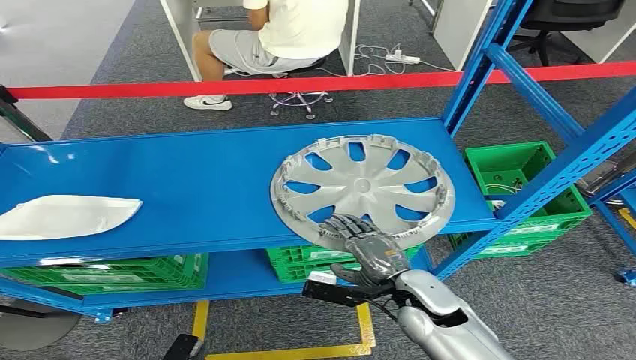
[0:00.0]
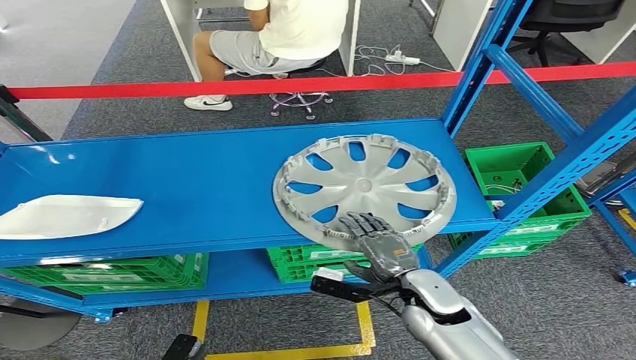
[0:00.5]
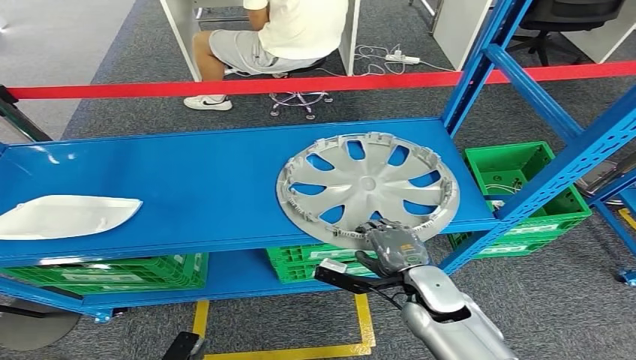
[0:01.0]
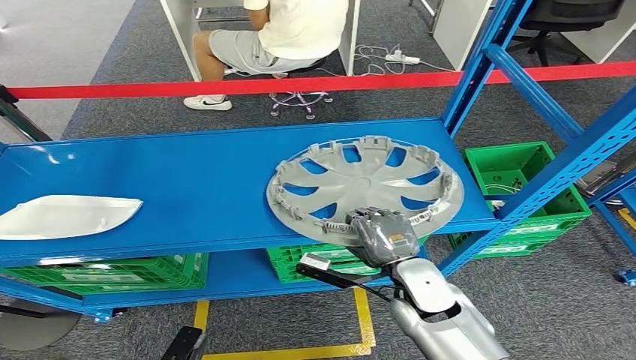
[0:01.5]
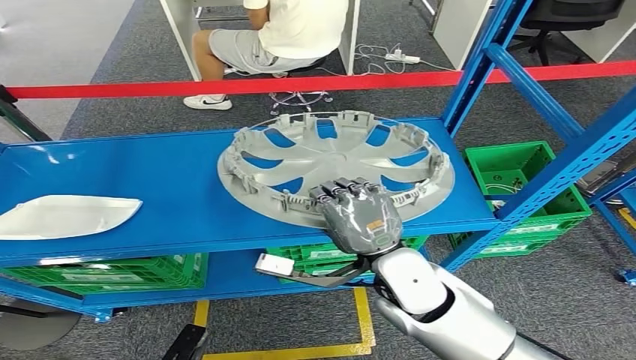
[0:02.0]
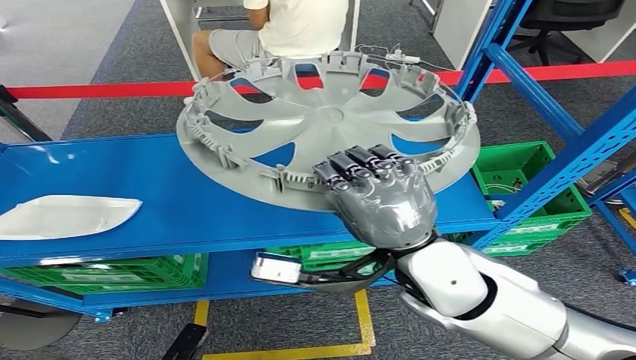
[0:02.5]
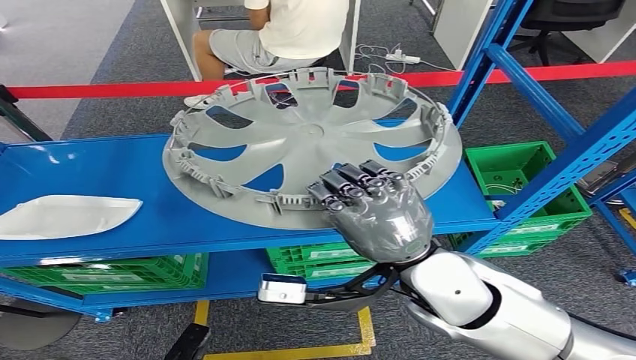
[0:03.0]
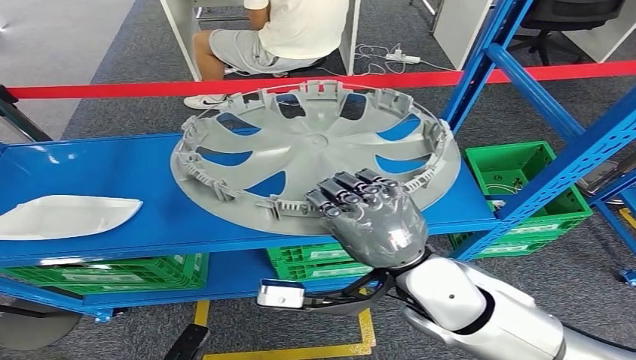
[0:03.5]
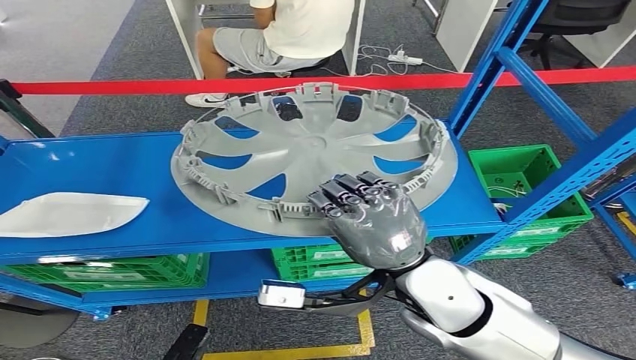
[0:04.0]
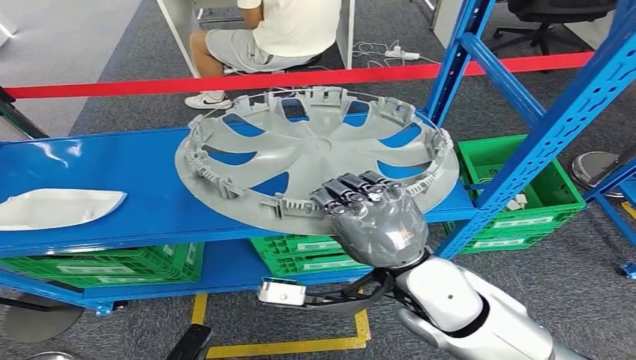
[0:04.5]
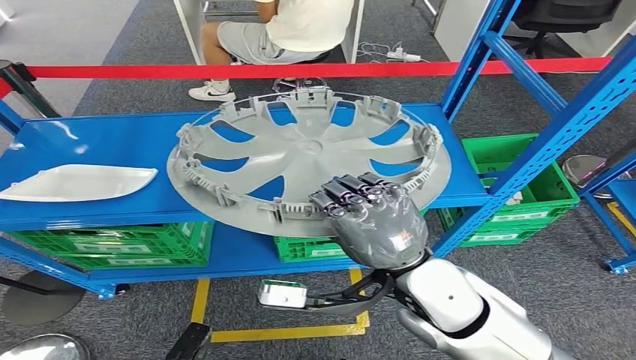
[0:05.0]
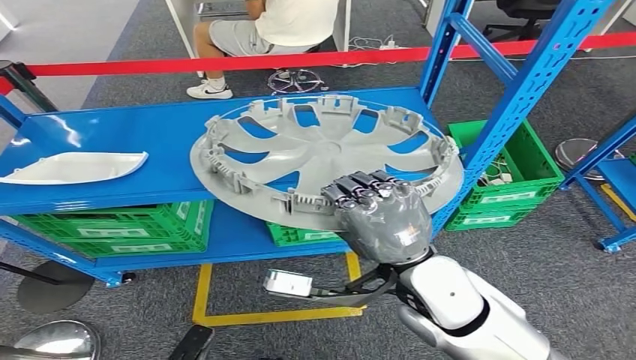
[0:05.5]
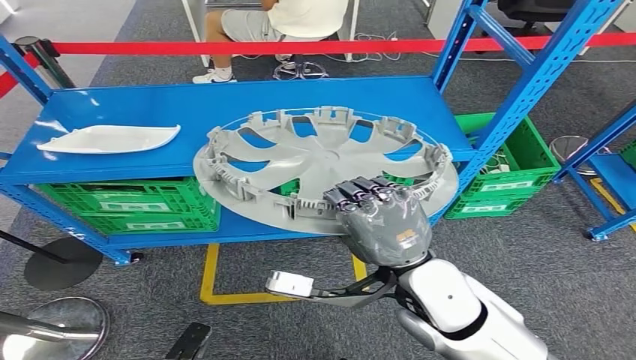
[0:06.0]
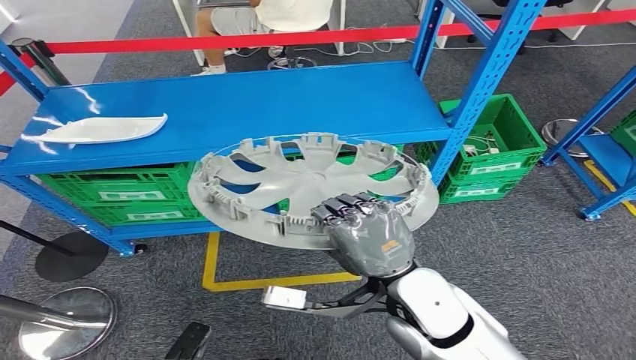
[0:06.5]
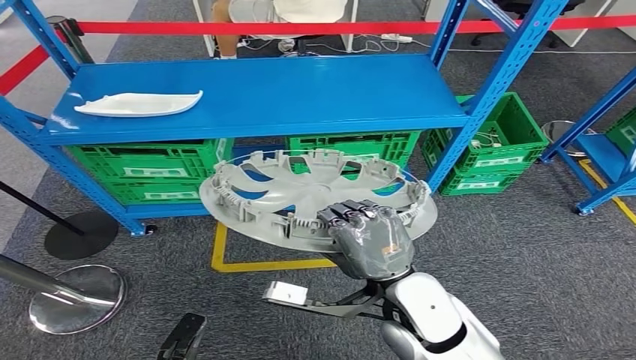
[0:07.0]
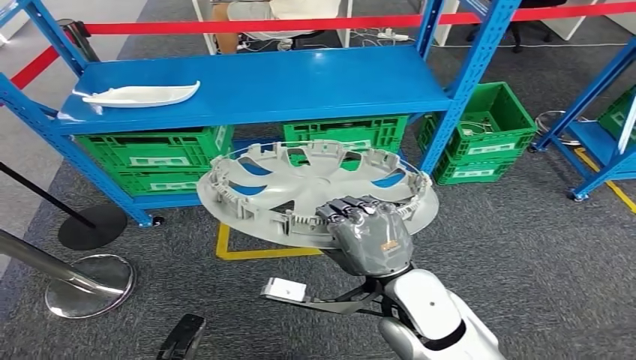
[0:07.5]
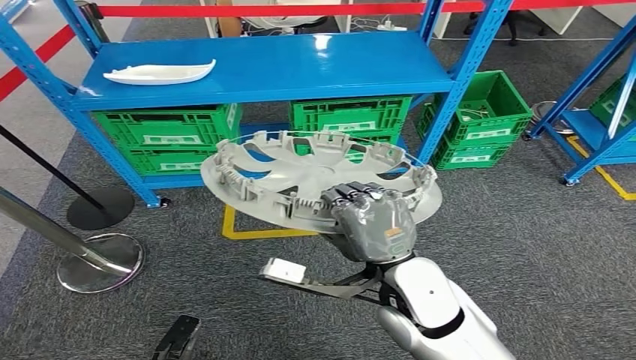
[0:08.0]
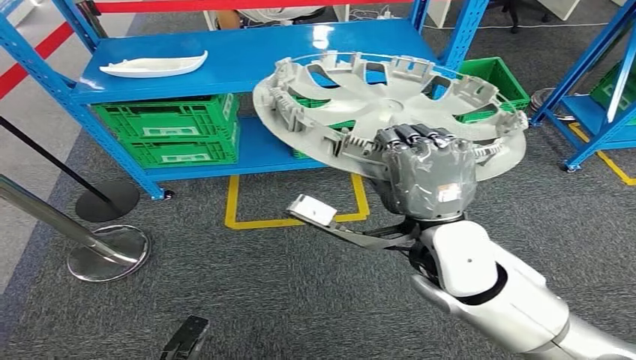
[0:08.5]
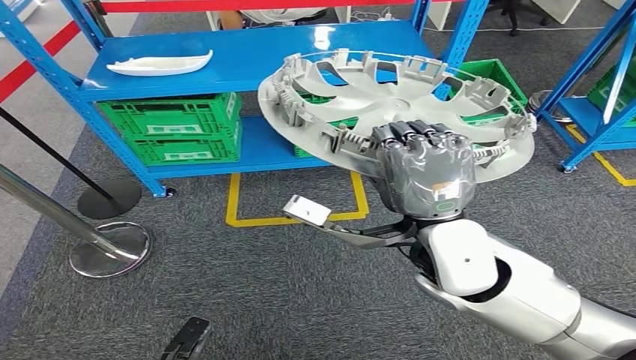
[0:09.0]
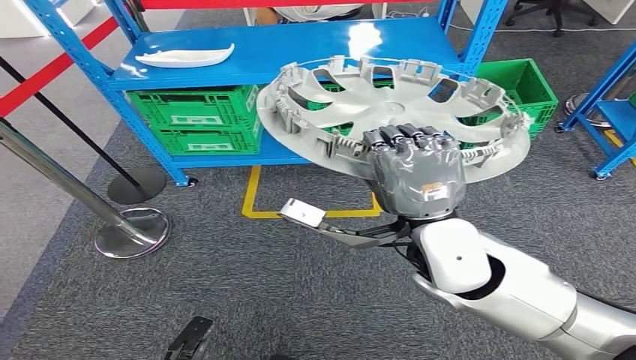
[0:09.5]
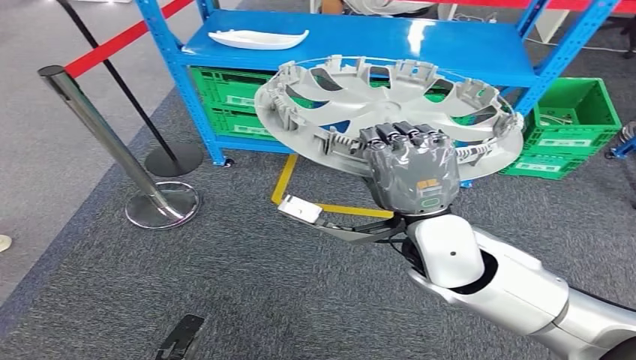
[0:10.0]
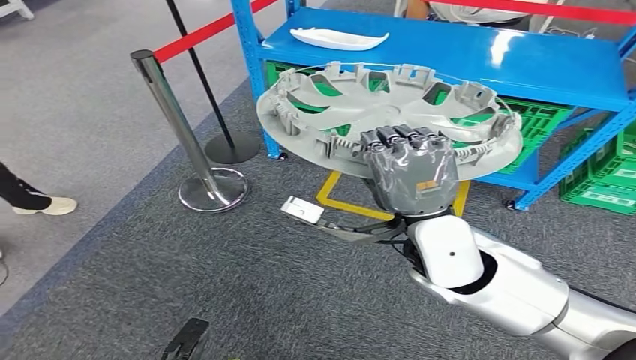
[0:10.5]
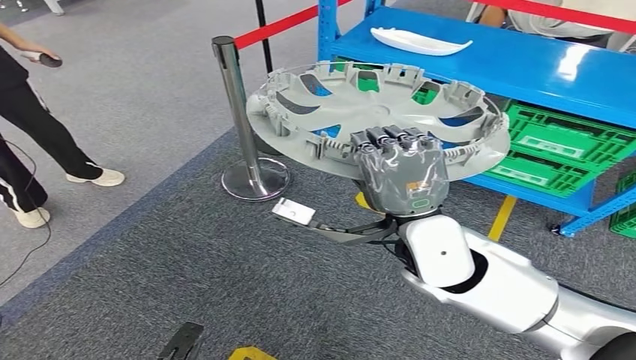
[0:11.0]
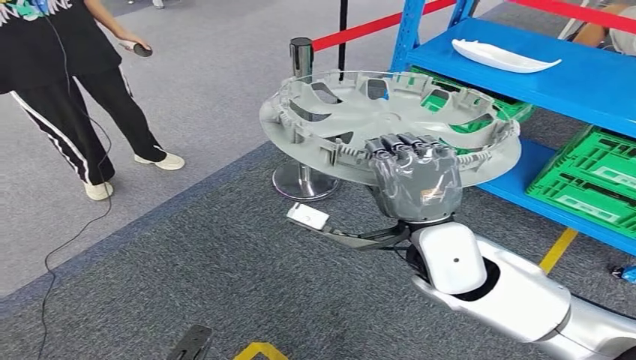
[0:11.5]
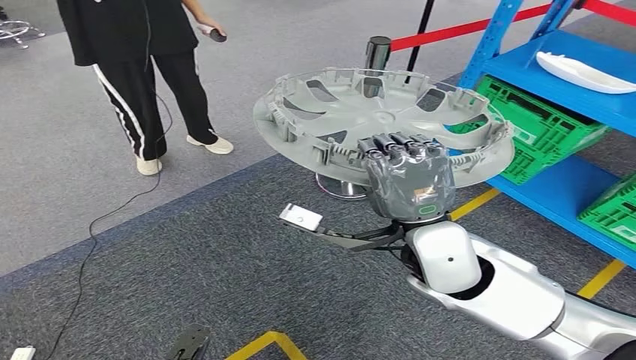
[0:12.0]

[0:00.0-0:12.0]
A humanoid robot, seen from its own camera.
Step, 0:00.0 to 0:04.5: Pick up the small component from the shelf.

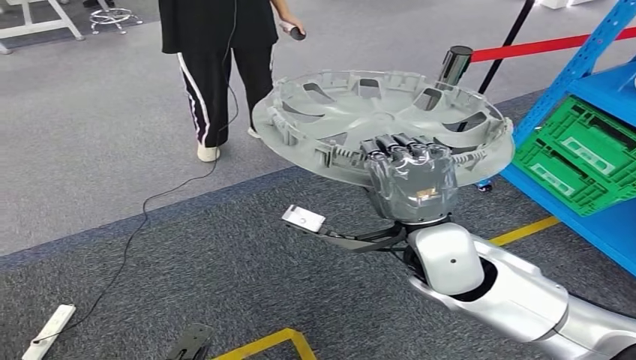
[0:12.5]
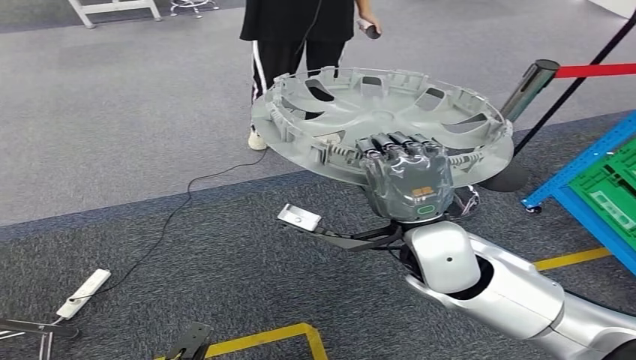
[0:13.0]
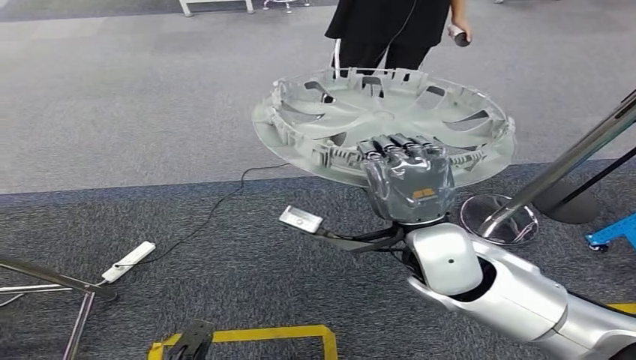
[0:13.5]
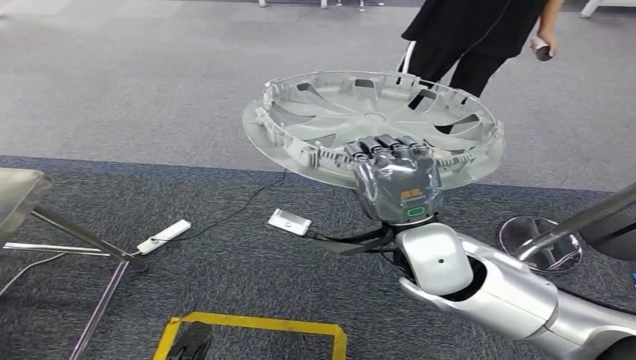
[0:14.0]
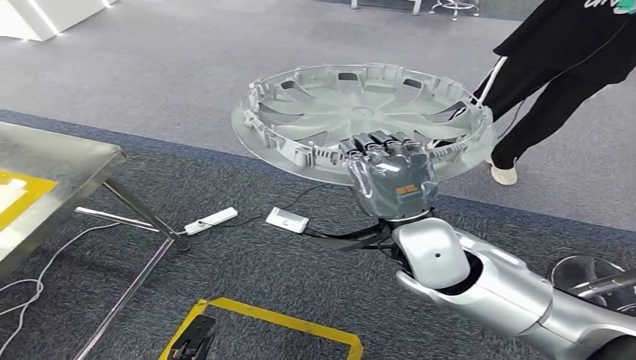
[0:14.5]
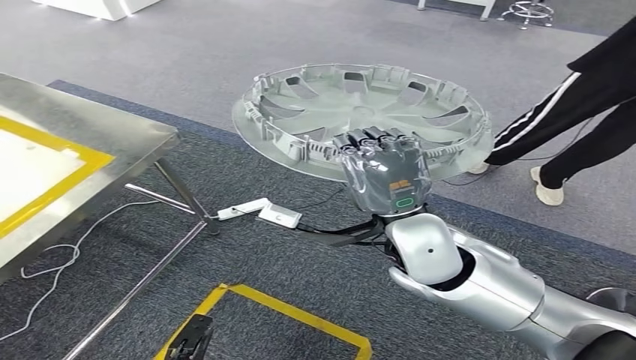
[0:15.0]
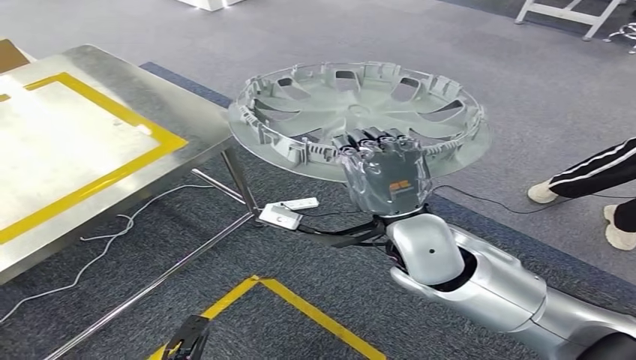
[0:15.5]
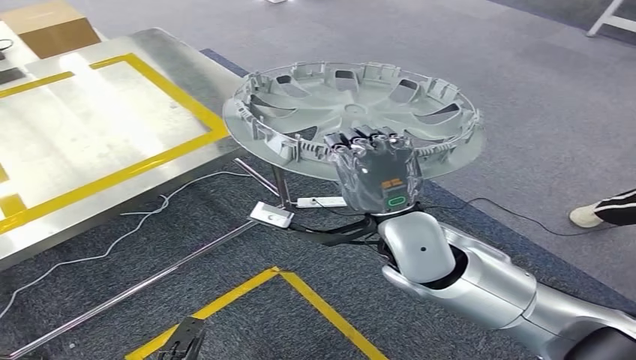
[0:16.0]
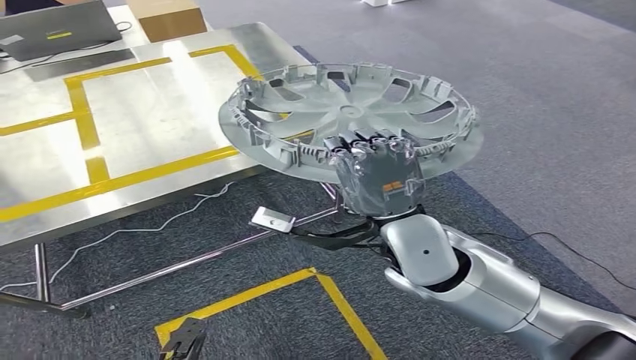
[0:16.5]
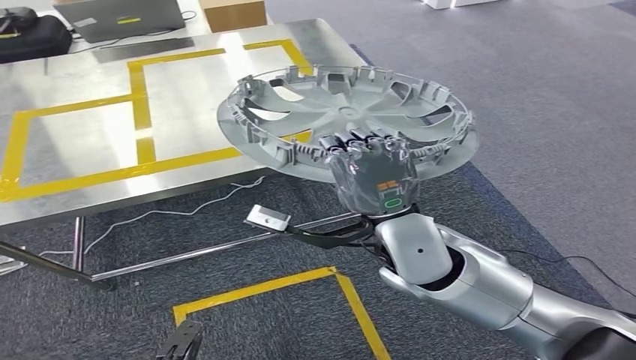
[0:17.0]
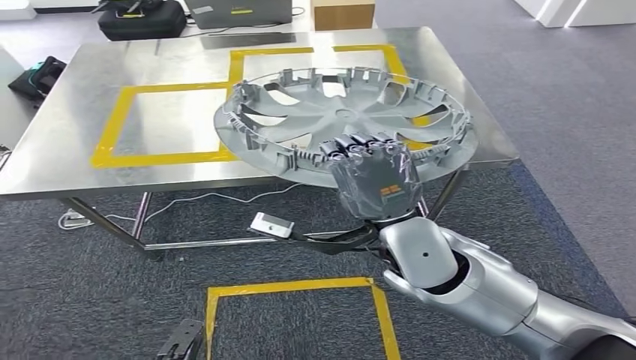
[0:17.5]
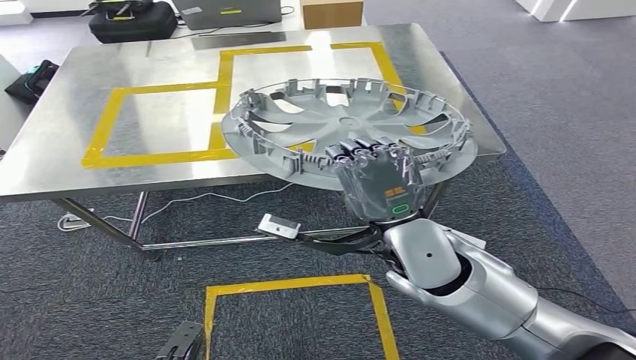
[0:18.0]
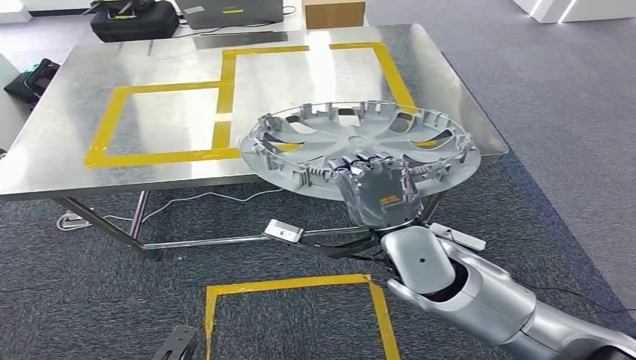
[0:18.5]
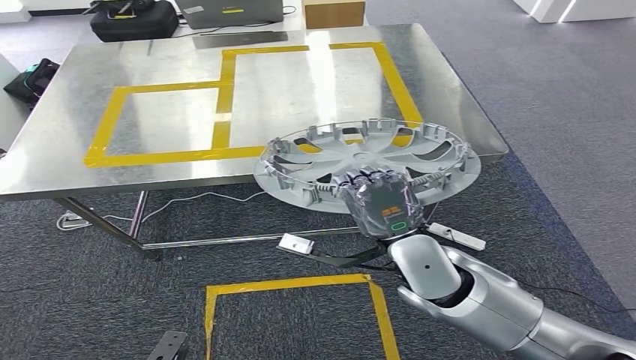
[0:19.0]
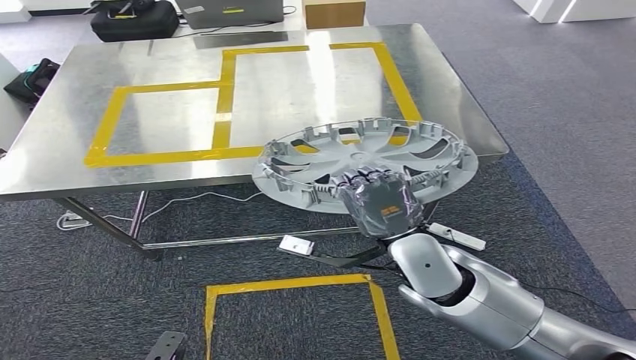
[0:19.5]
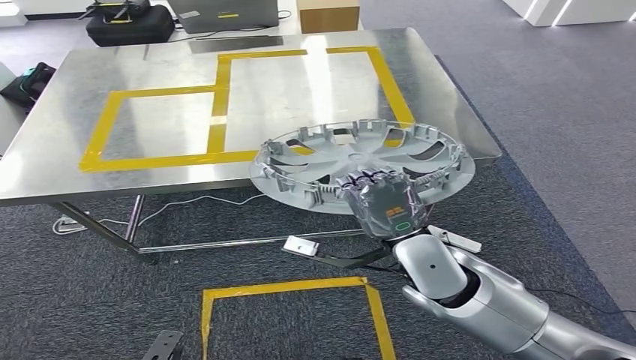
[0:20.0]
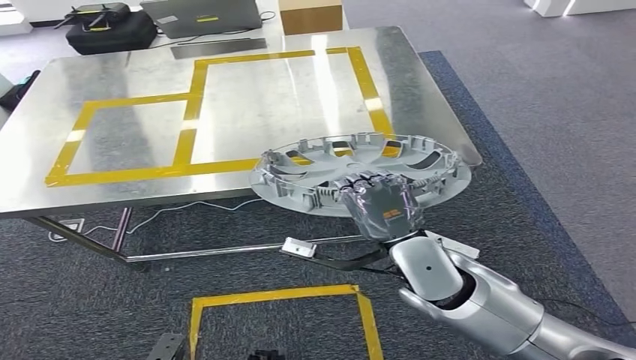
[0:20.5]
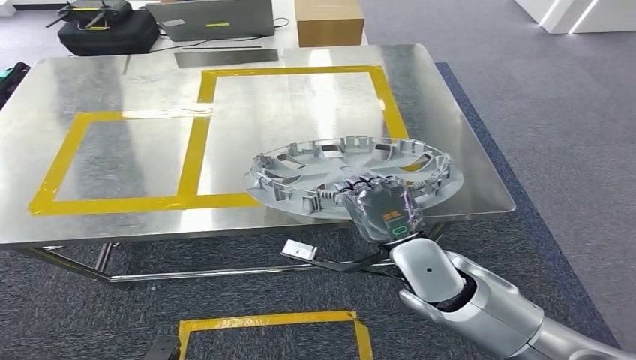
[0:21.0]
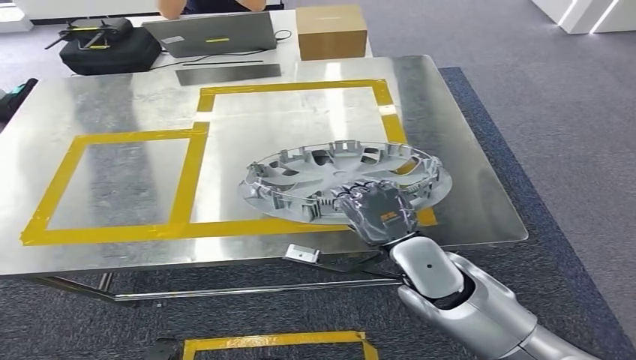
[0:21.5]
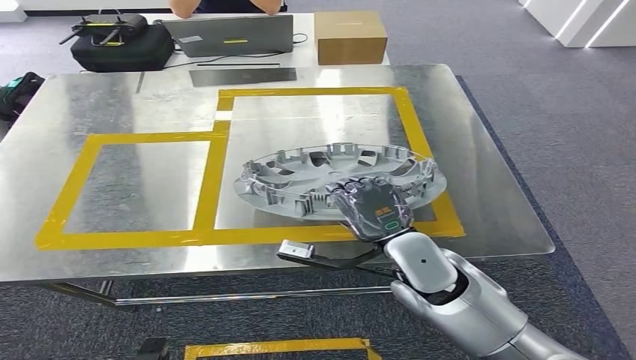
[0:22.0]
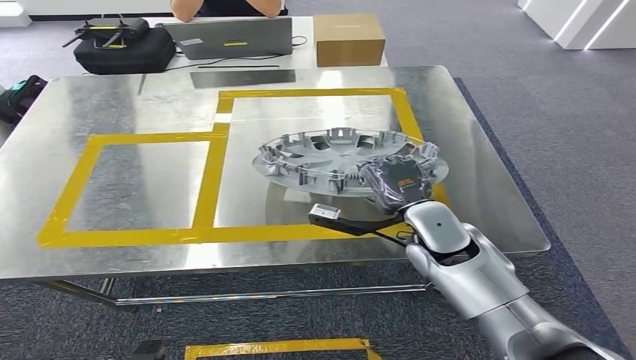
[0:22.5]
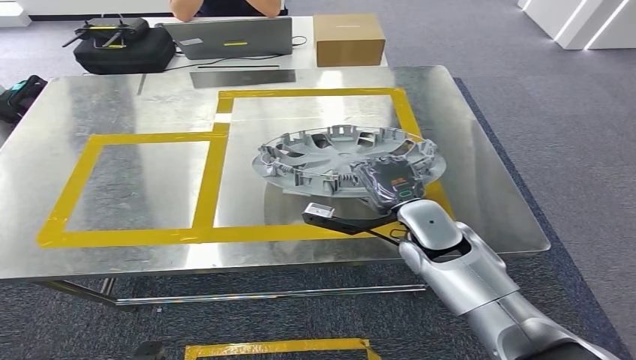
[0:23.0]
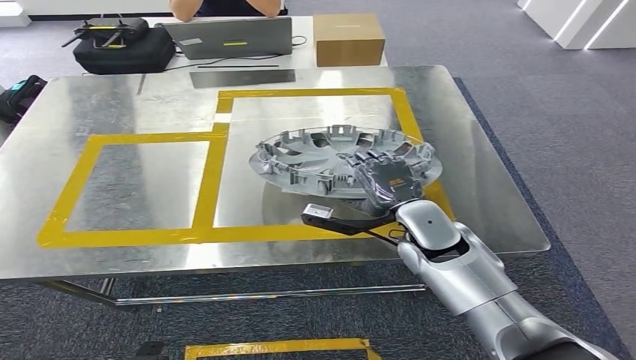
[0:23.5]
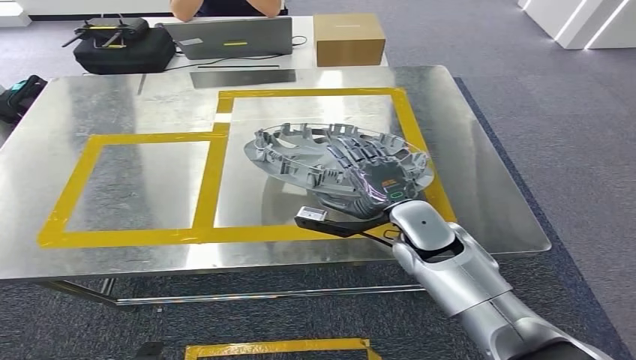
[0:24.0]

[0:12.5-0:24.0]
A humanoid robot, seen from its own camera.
Step, 0:12.5 to 0:17.5: Bring the small component to the front of the workbench.
0:22.0 to 0:24.0: The right hand shifts approximately 5 cm forward.
